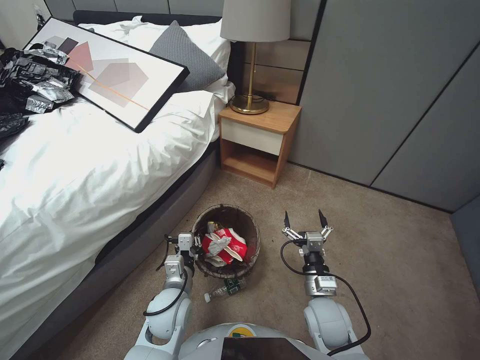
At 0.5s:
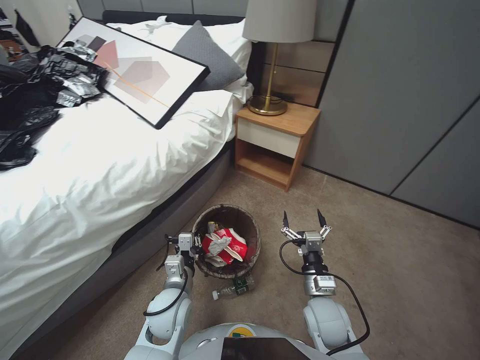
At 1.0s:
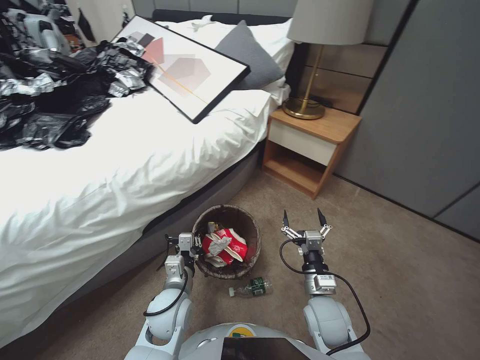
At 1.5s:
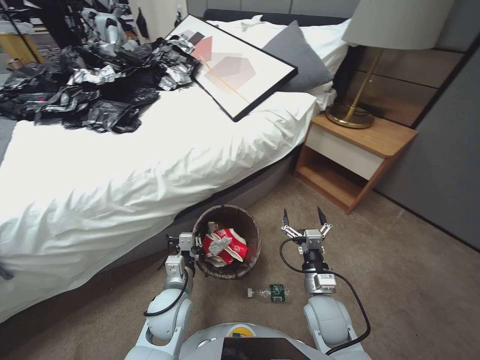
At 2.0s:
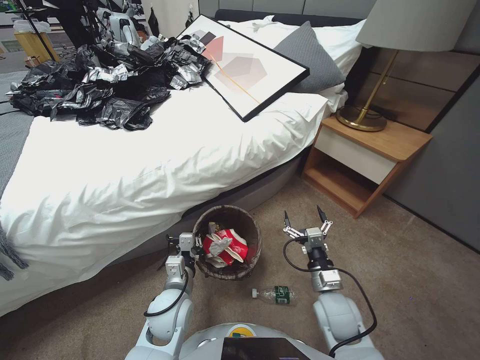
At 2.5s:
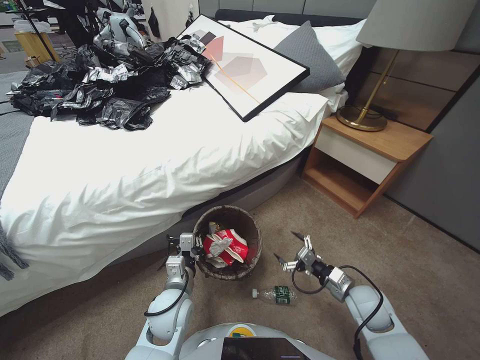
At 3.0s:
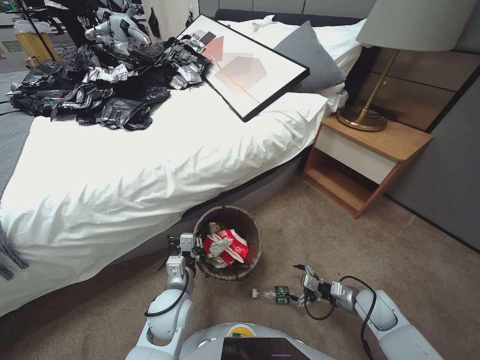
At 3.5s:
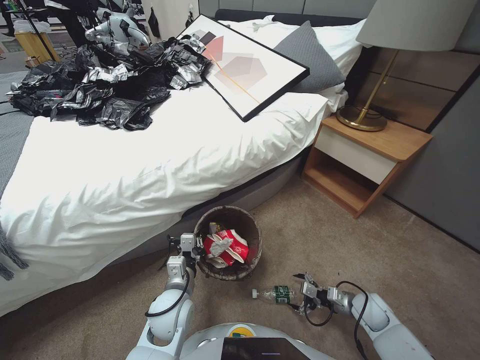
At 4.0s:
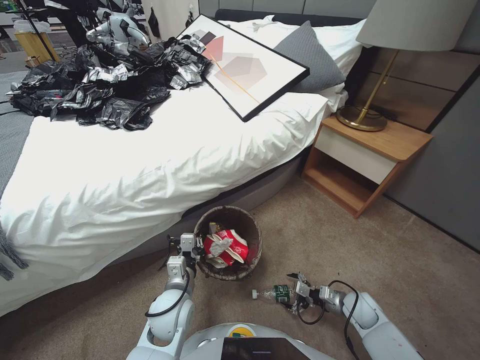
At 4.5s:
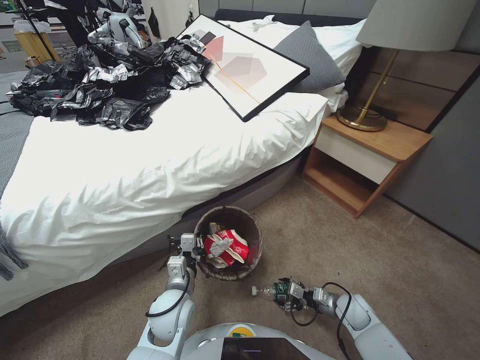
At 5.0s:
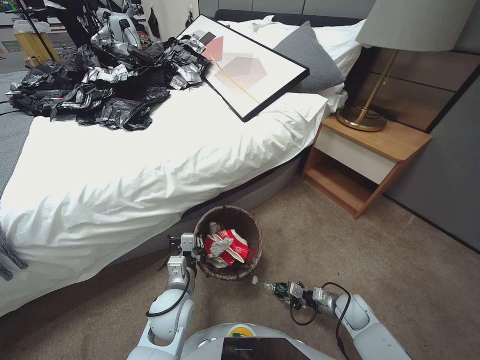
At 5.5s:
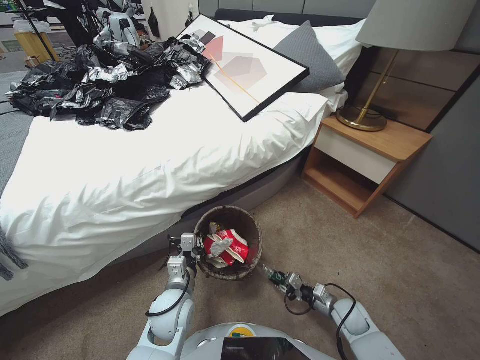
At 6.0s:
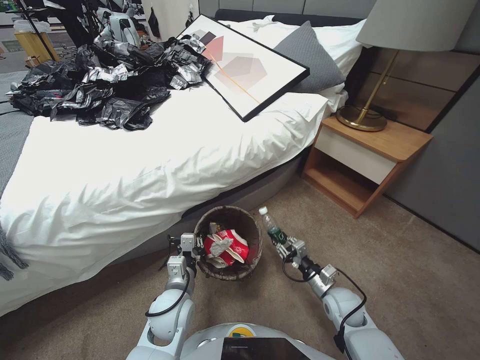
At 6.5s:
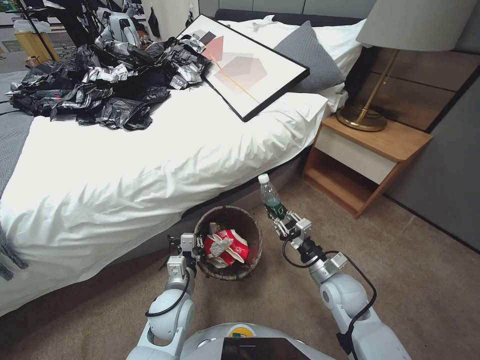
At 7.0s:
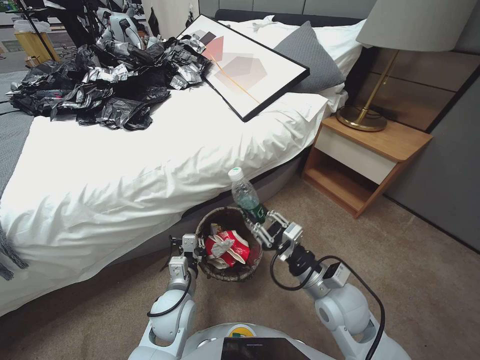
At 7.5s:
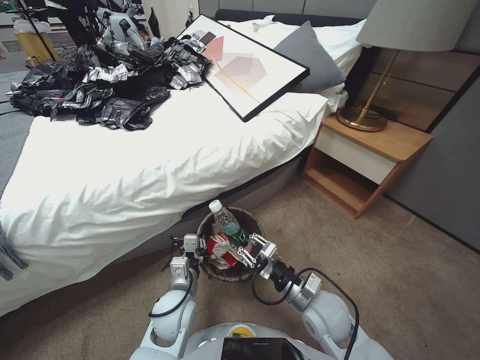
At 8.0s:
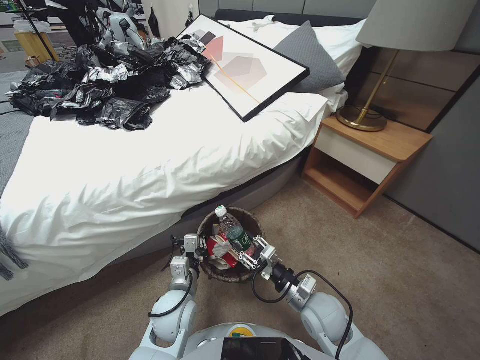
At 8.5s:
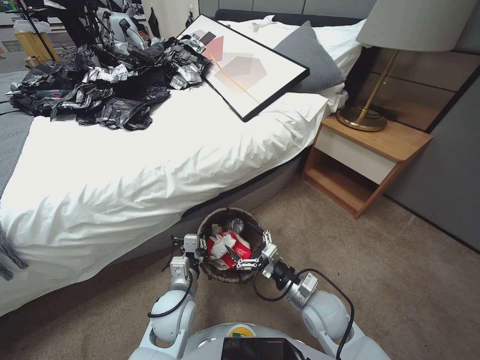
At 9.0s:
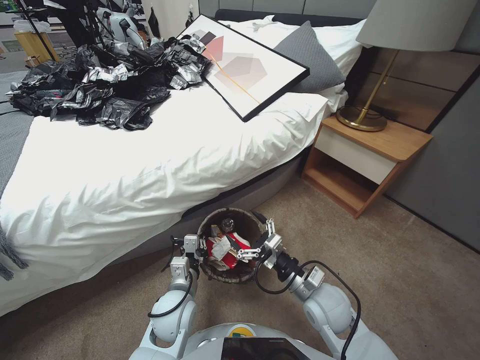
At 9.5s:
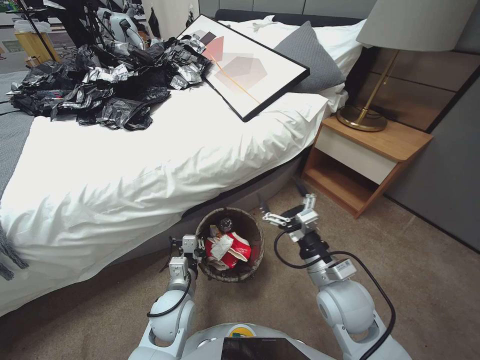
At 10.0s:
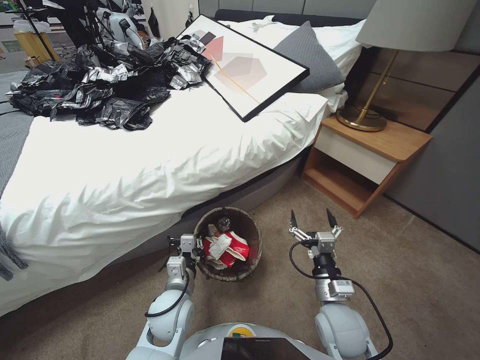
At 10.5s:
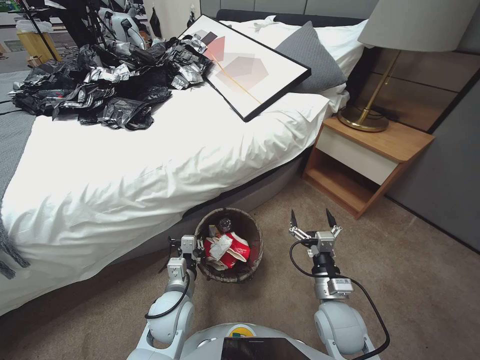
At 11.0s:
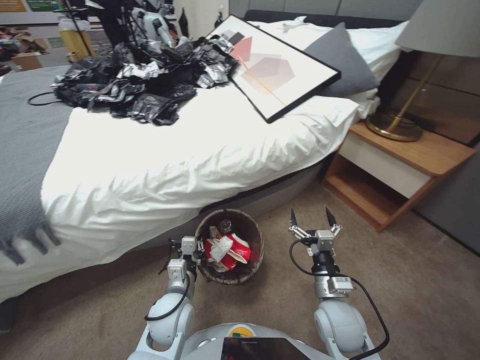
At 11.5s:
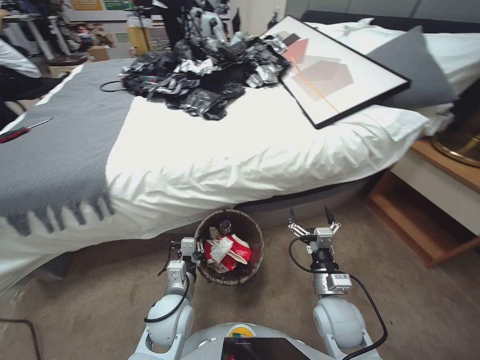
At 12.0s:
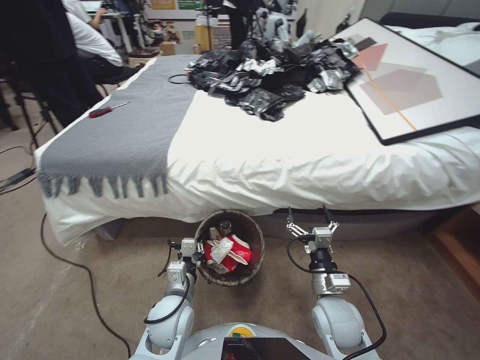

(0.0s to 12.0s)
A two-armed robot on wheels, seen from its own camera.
Task of the whole recording: Pick up the trash bin, then pick up the garbage from the floor and place it into the trash bin.
2.0s - 4.0s: The right gripper shifts about 20 cm to the right and downward.
4.0s - 6.0s: The right gripper moves to the left, approximately 10 cm, and closes.
6.0s - 8.0s: The right gripper is displaced to the left and upward by about 15 cm.
8.0s - 10.0s: The right gripper travels upward by some 10 cm, and opens.
10.0s - 12.0s: The right gripper travels downward by some 10 cm.

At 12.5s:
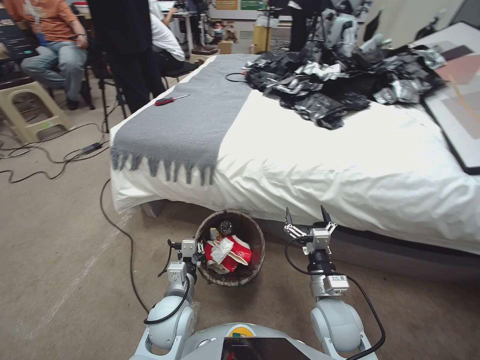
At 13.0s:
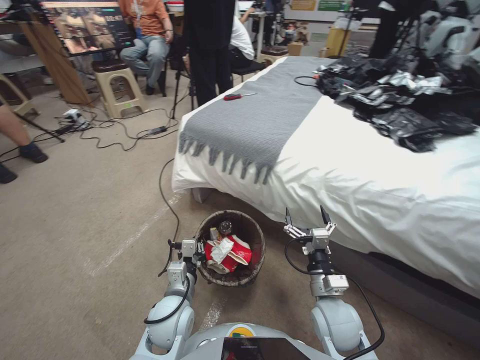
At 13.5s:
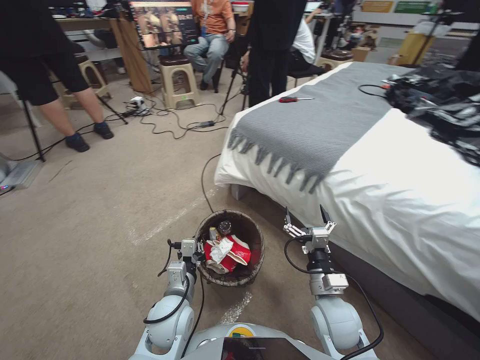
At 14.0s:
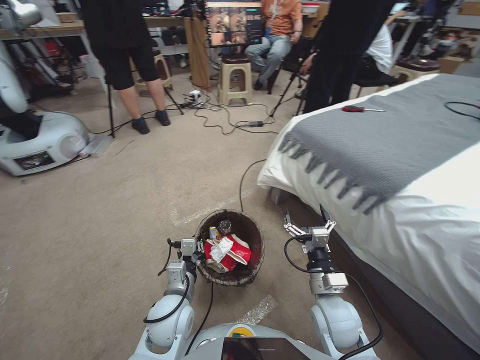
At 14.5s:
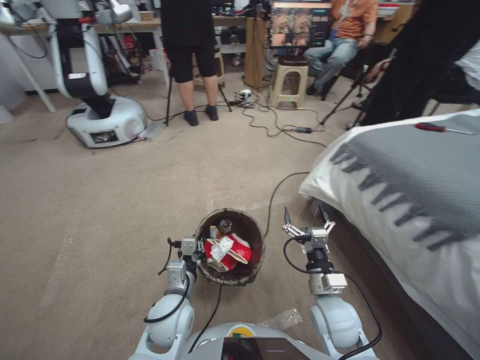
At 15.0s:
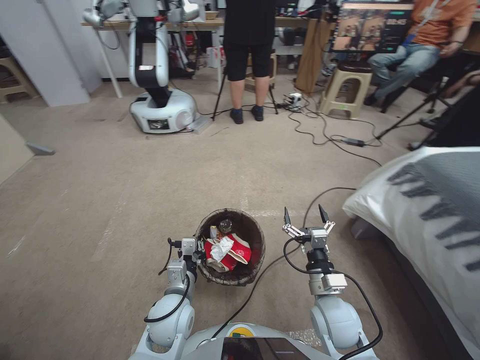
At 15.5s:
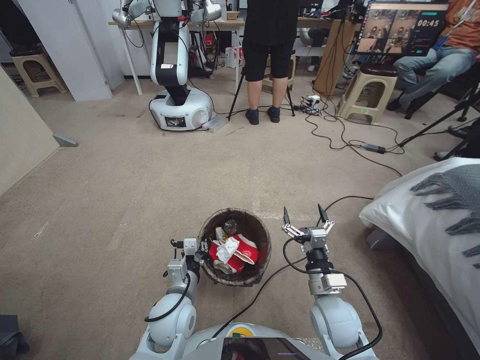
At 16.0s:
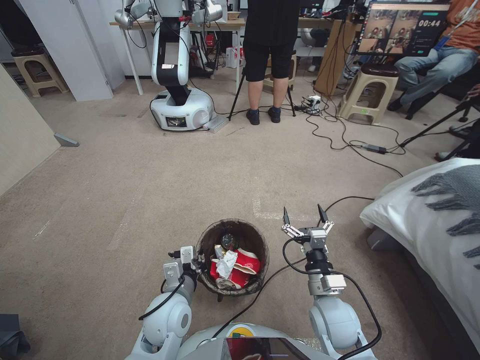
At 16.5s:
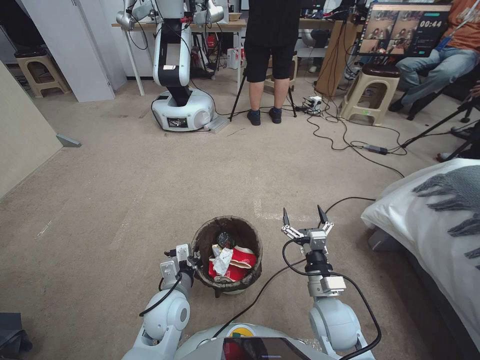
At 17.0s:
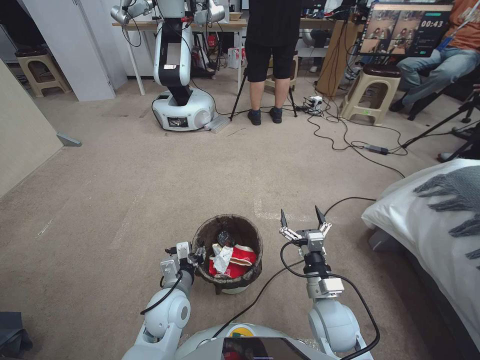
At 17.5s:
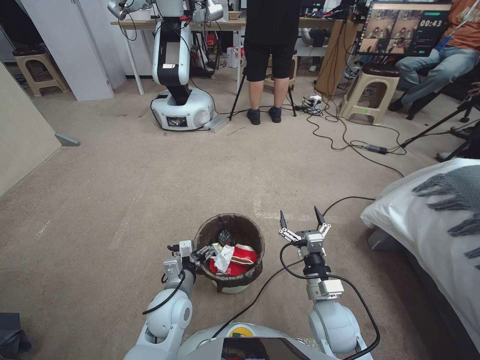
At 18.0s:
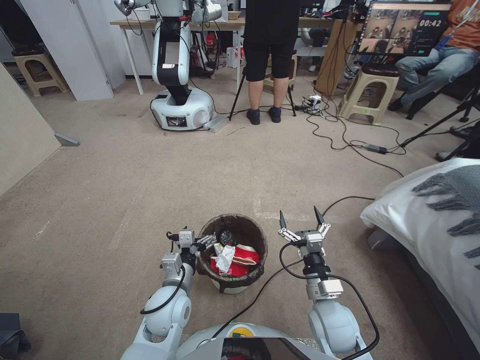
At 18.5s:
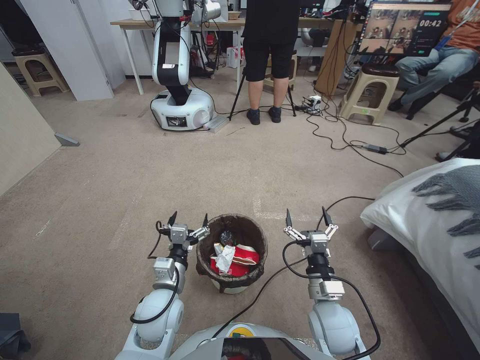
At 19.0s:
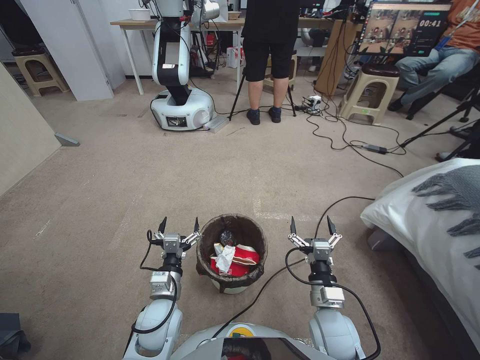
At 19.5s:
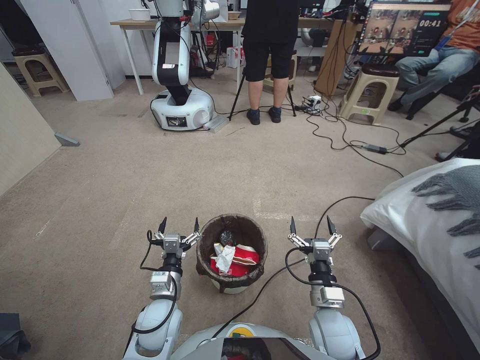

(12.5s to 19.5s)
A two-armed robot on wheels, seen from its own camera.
Task of the whole recording: Pick up the trash bin, then pick up the garbage from the floor and place it into the trash bin.
16.0s - 17.5s: The left gripper opens its fingers.
